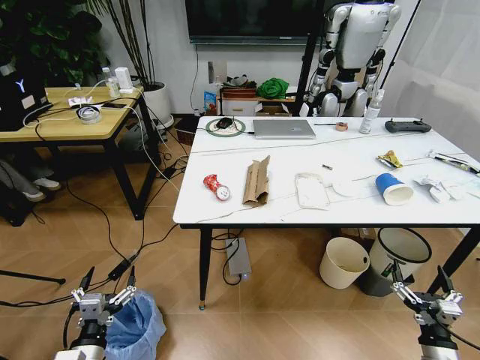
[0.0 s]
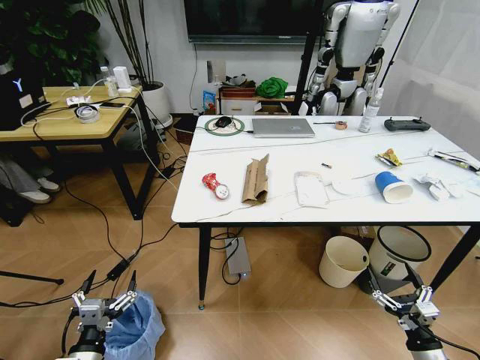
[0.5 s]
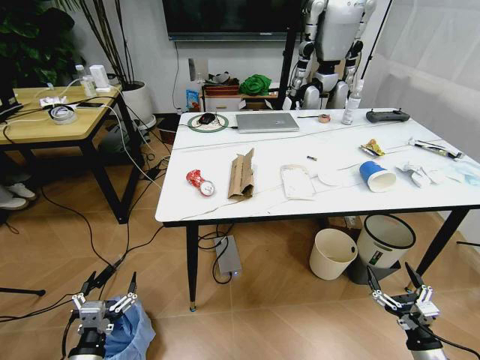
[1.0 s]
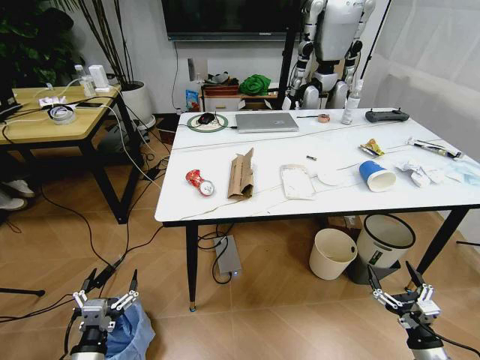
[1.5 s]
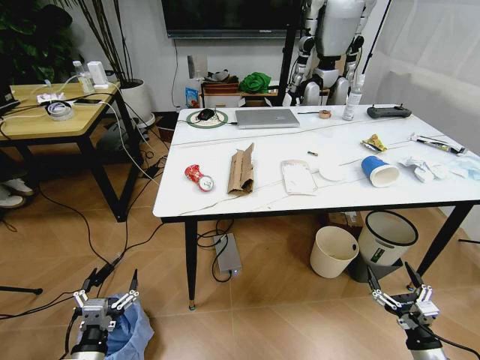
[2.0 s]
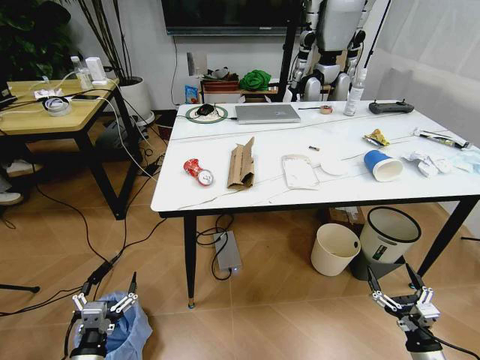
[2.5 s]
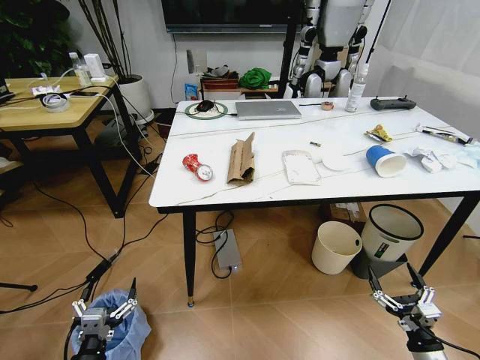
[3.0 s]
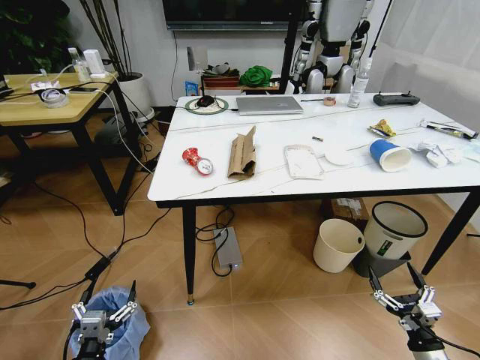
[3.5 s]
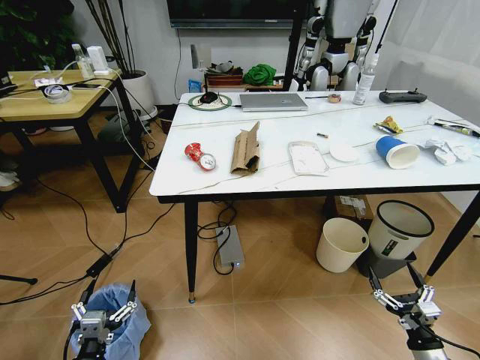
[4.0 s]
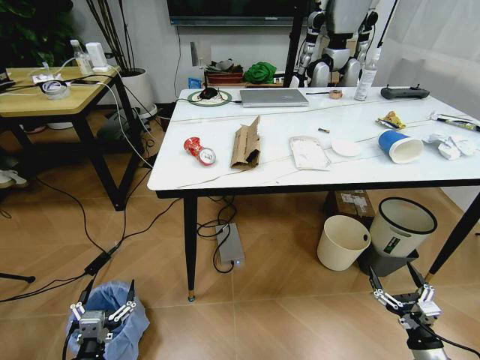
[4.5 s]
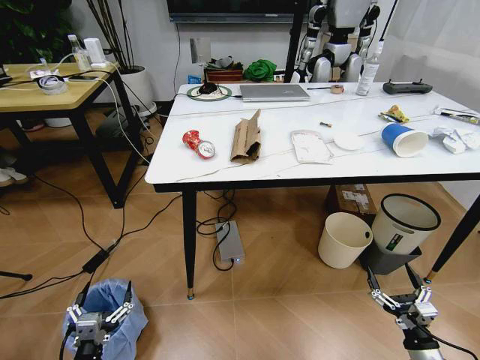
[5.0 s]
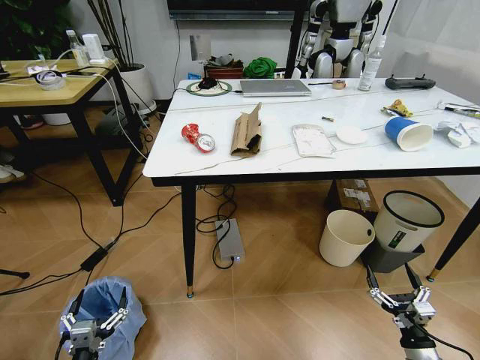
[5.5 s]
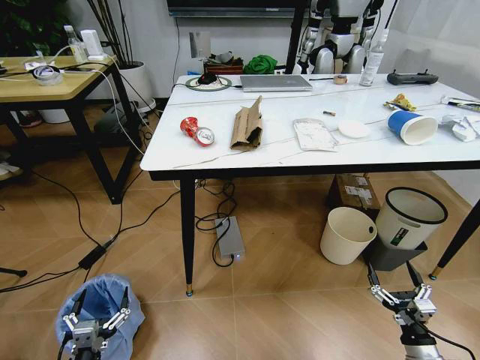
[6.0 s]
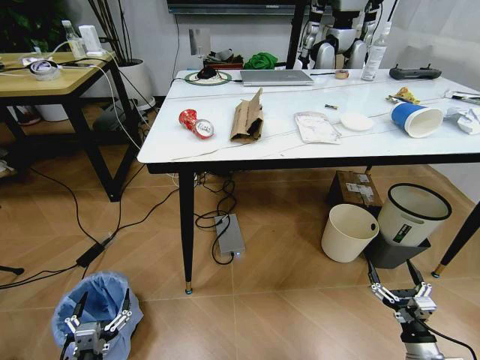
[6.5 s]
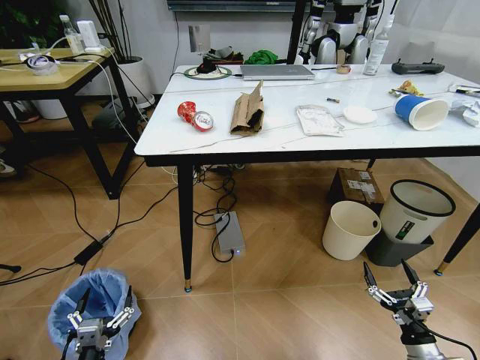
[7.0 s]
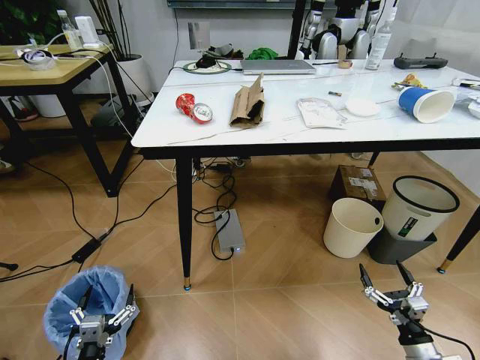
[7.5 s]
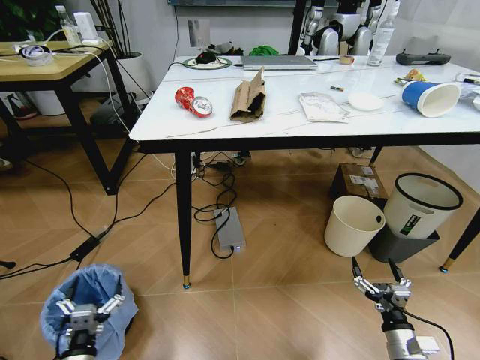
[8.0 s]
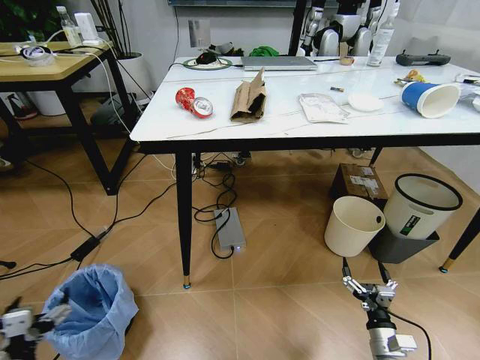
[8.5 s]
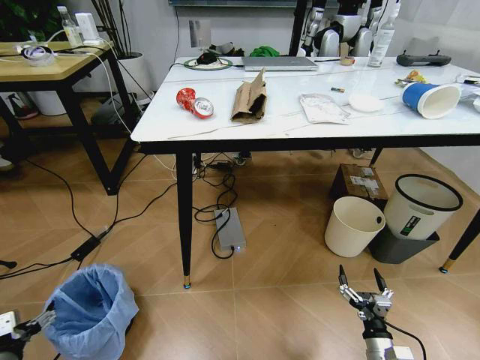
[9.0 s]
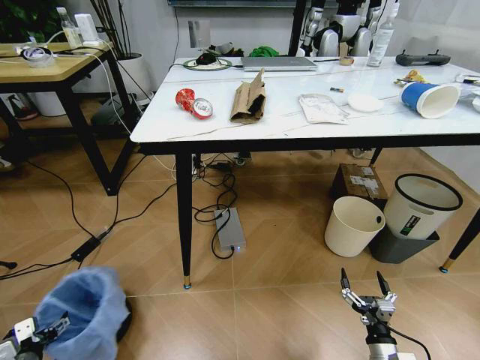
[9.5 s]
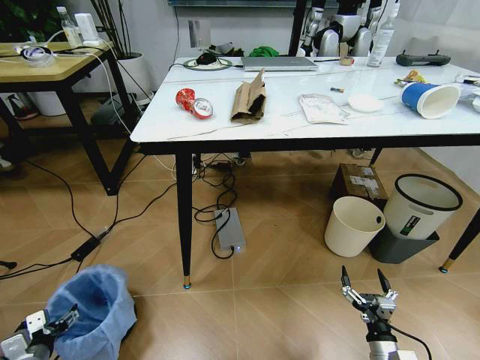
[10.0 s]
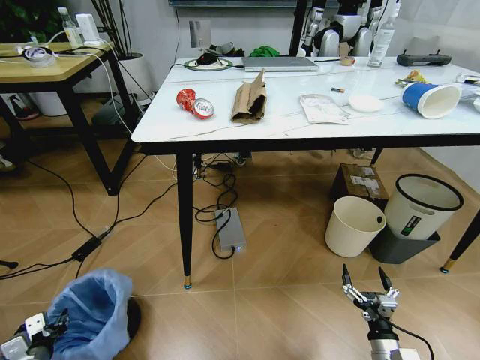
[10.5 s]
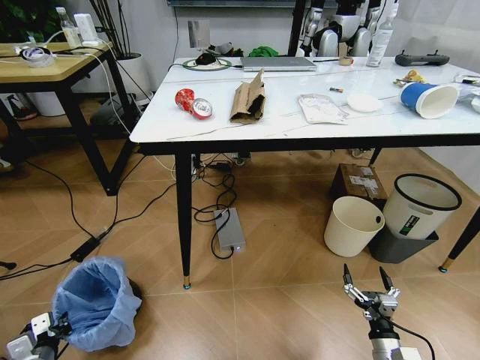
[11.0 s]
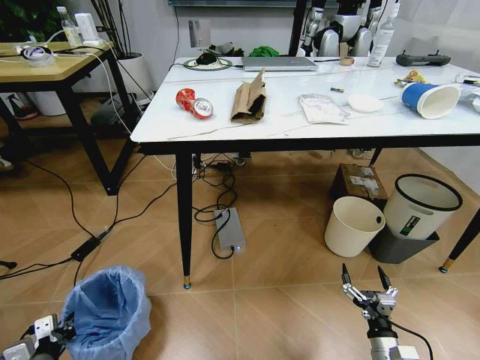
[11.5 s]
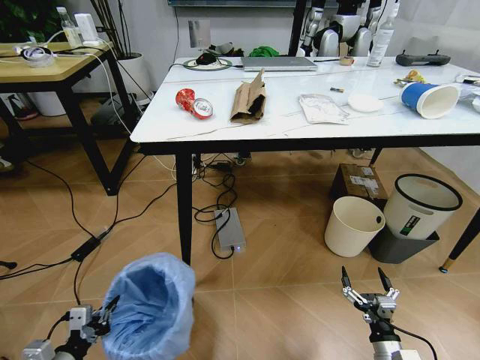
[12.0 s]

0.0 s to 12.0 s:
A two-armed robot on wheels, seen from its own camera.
Task of the whole recording: Pick up the trash bin and place the trash from the table into it.
8.0 to 10.0 s: The right gripper moves approximately 5 cm. The left gripper heads to the left, covering roughly 15 cm.
10.0 to 12.0 s: The left gripper heads to the right and upward, covering approximately 10 cm, and closes its fingers.

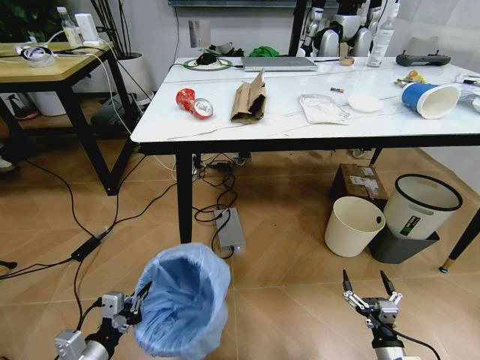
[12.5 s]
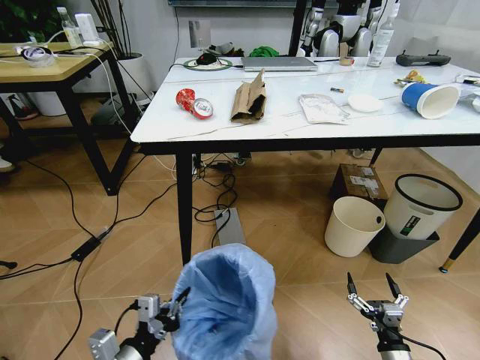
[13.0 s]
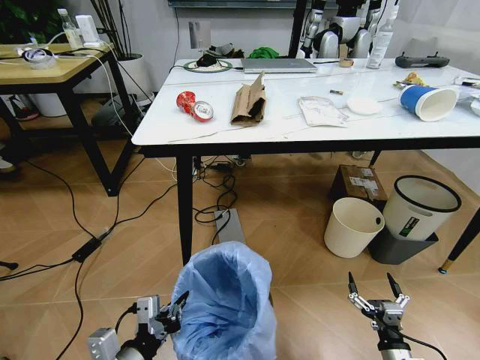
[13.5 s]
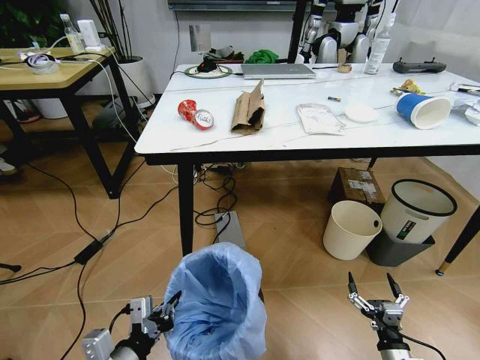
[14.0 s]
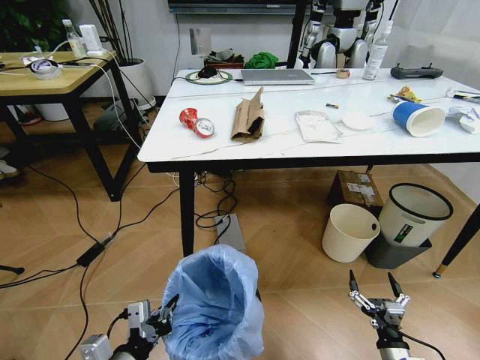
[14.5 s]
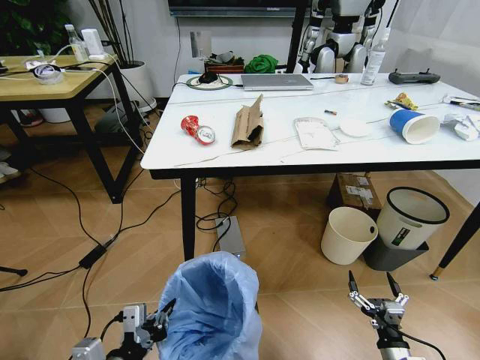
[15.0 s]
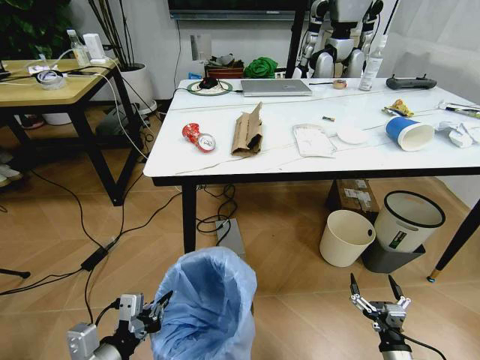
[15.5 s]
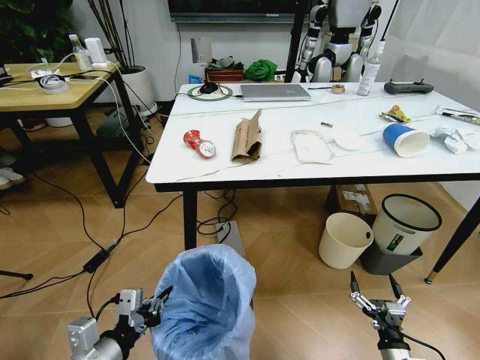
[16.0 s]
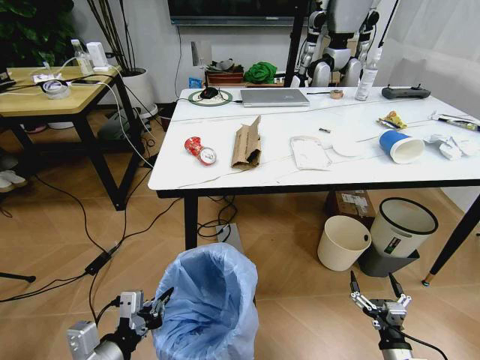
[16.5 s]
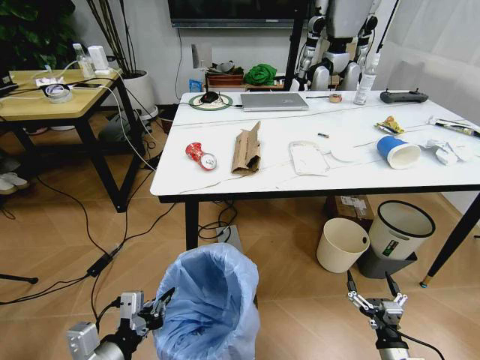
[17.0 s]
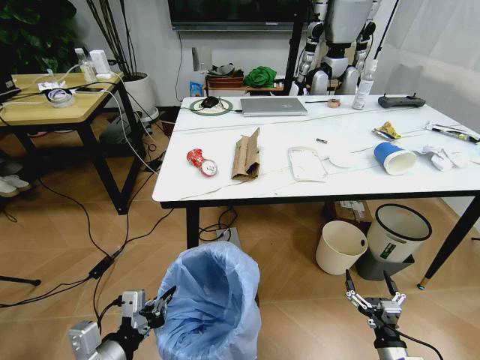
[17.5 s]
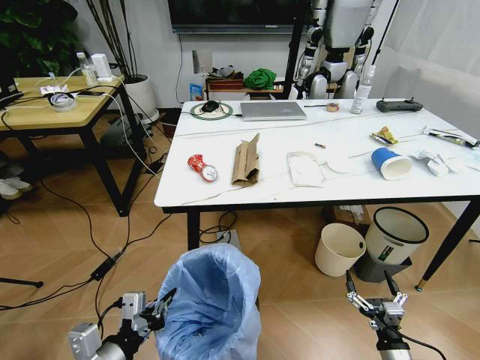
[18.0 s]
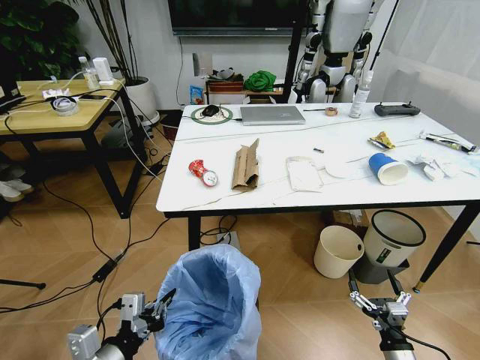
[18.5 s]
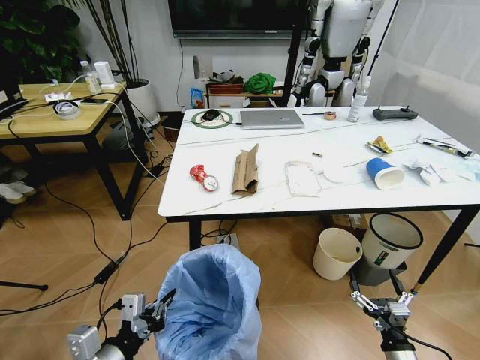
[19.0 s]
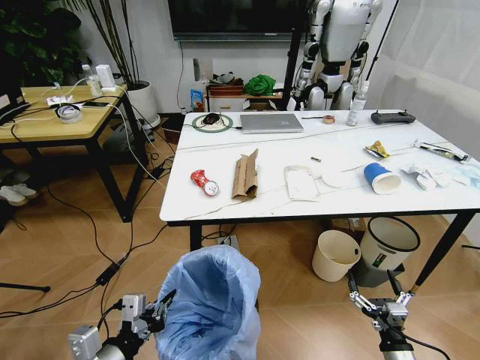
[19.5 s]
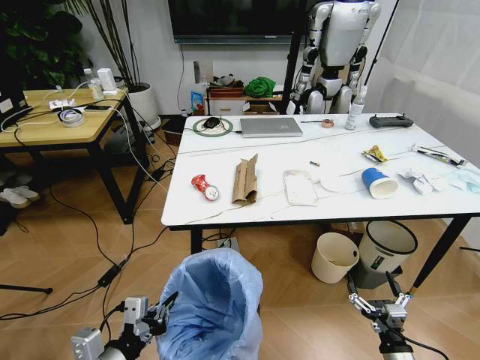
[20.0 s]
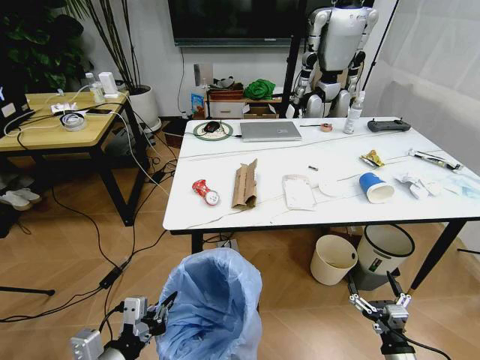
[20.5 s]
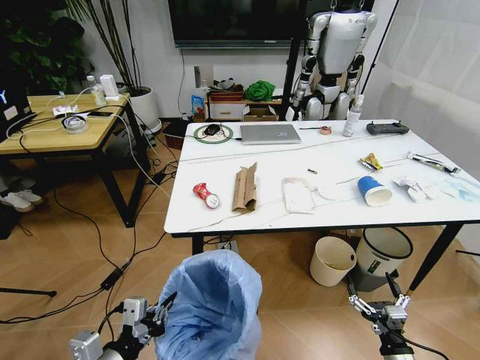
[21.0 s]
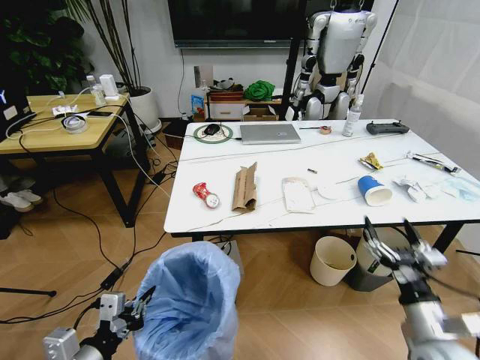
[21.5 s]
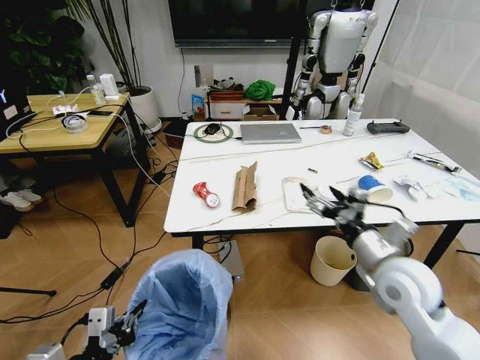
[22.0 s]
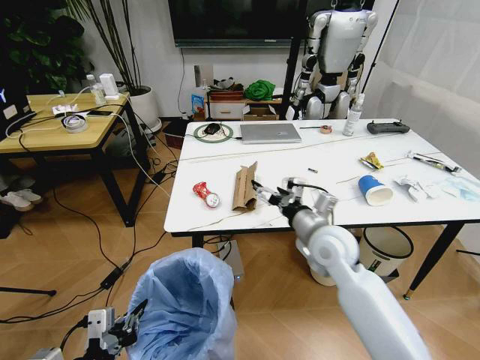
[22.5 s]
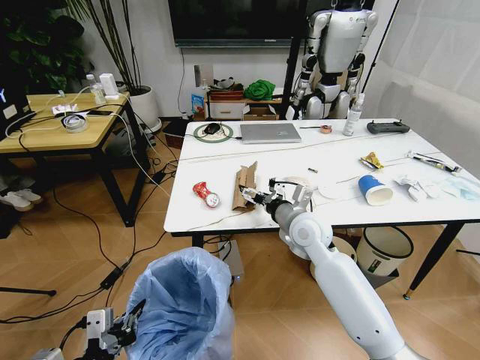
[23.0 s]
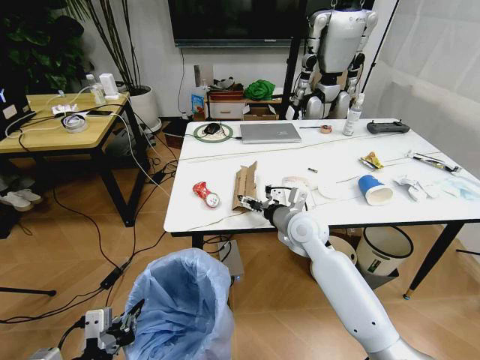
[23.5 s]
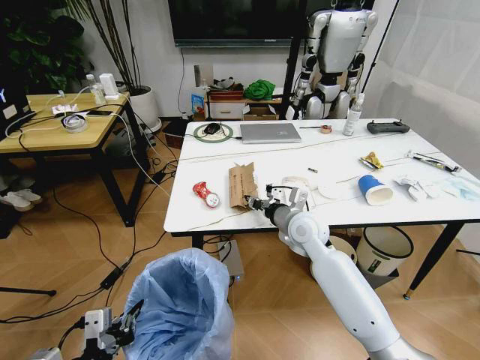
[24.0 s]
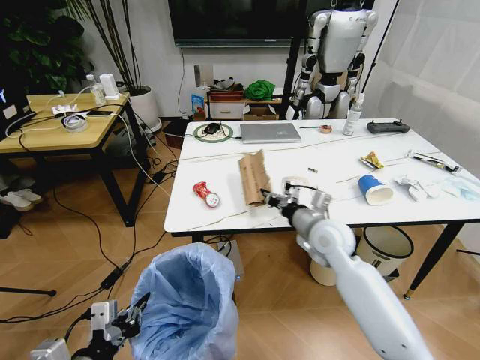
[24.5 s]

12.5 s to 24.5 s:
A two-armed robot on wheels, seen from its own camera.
Task of the whole recording: Pick up the trash bin and place the trash from the table into it.
12.5 to 14.5 s: The left gripper goes about 10 cm to the right.
20.5 to 22.5 s: The right gripper travels forward, upward and to the left by some 40 cm.
22.5 to 24.5 s: The right gripper closes its fingers.

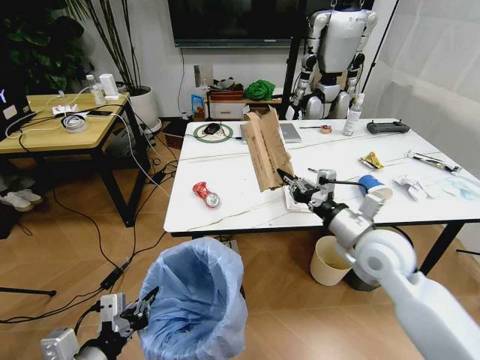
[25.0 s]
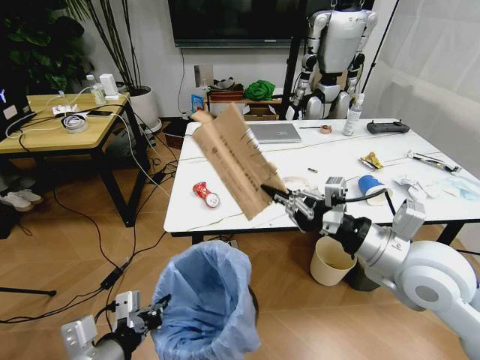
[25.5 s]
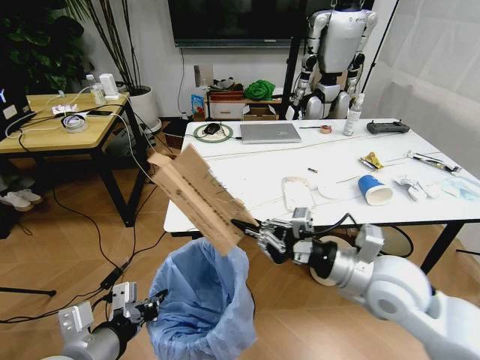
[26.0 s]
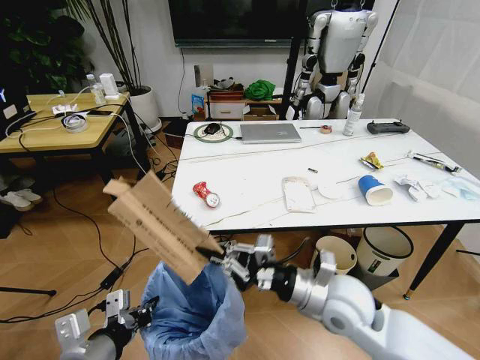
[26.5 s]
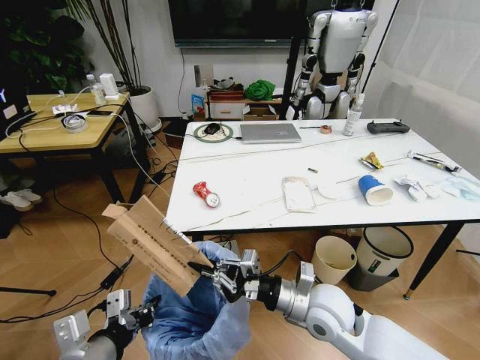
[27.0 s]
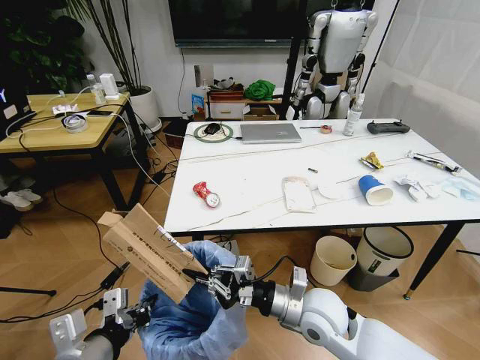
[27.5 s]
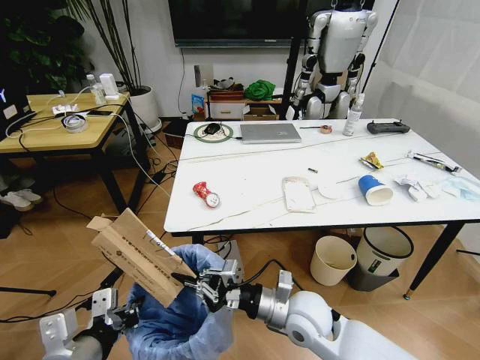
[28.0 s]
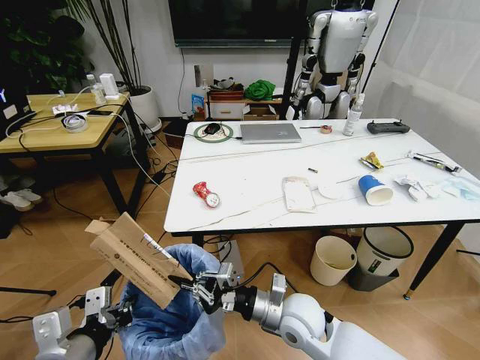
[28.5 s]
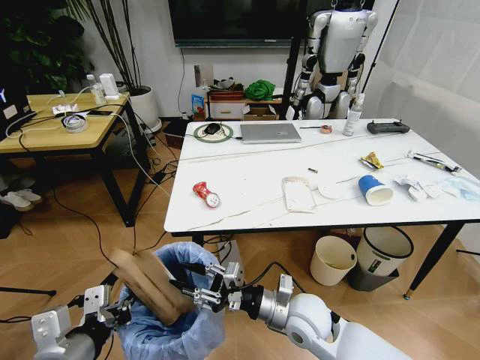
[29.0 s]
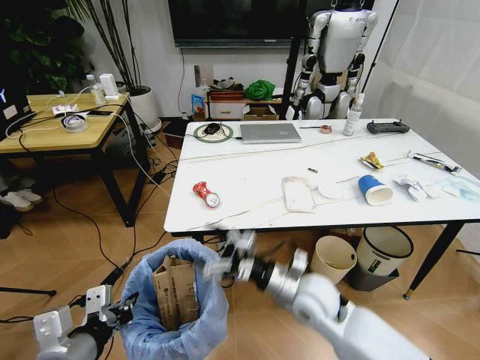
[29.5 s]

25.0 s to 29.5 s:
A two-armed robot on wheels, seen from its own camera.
Task of the whole recording: Pick up the trash bin and place the trash from the table into it.
25.0 to 27.0 s: The right gripper is displaced to the left, downward and backward by approximately 15 cm.
27.0 to 29.5 s: The right gripper opens.
